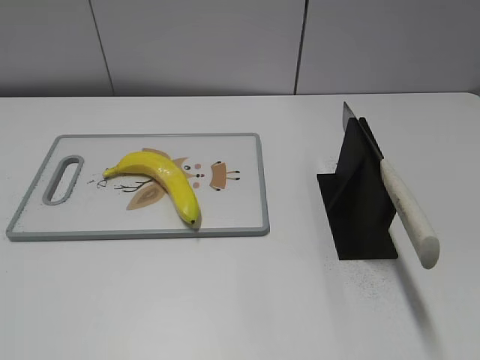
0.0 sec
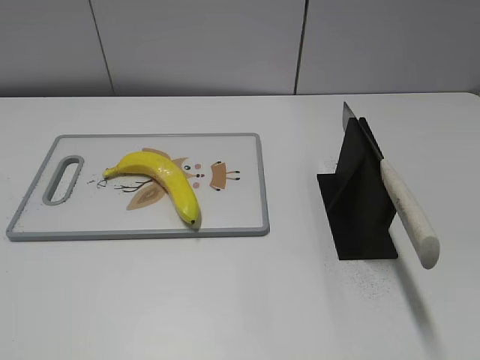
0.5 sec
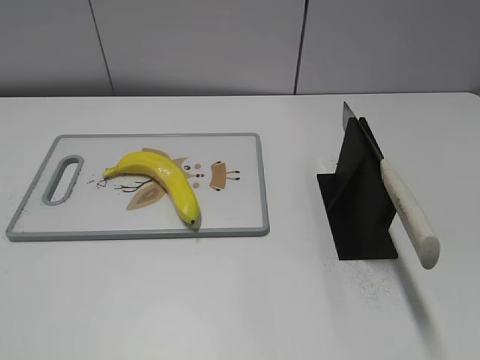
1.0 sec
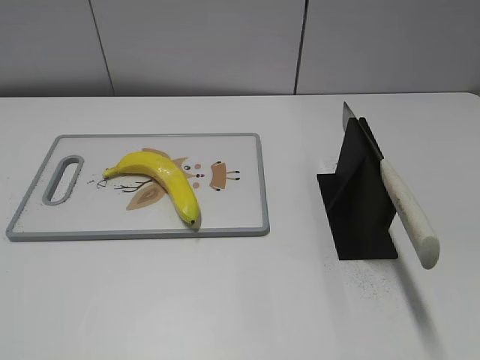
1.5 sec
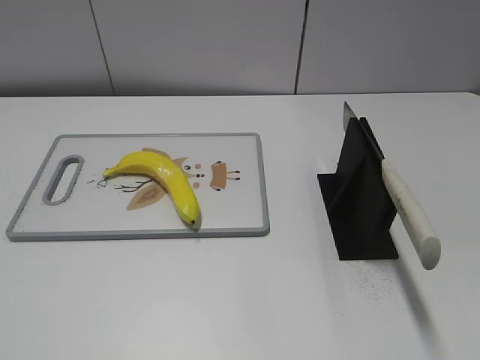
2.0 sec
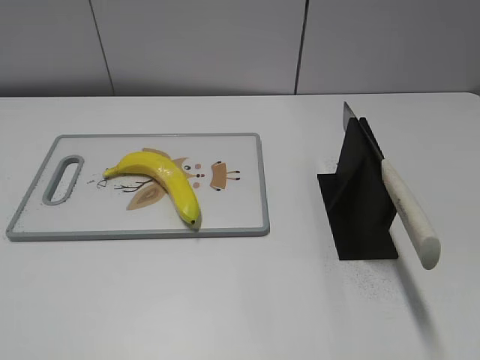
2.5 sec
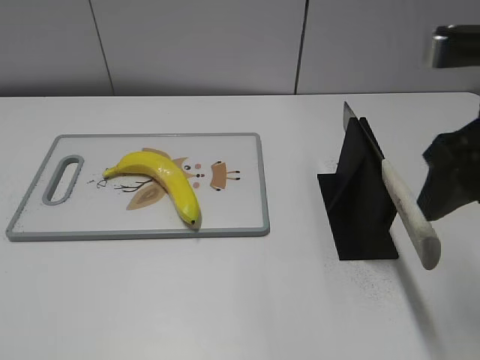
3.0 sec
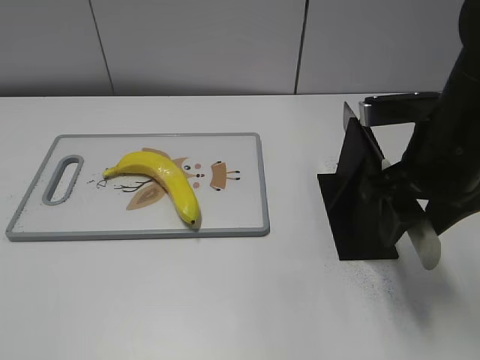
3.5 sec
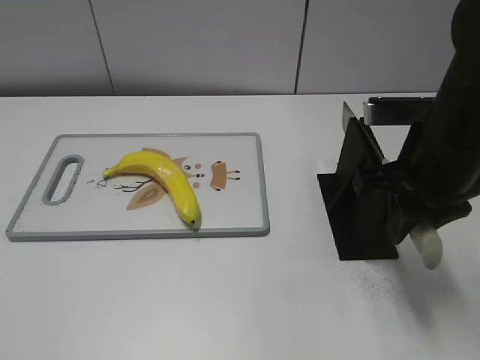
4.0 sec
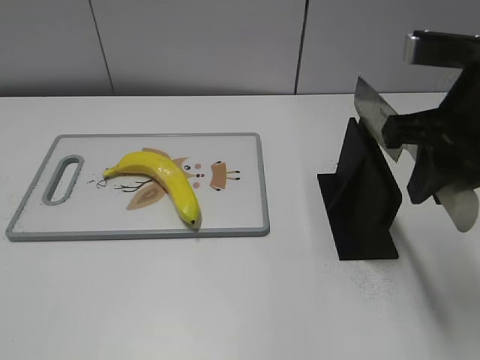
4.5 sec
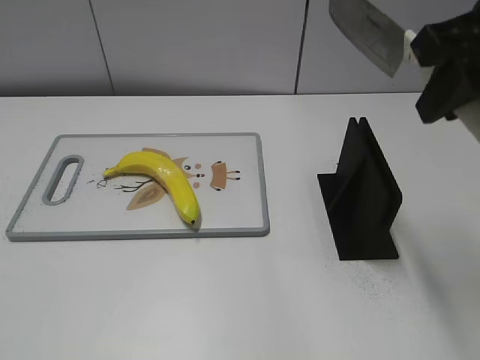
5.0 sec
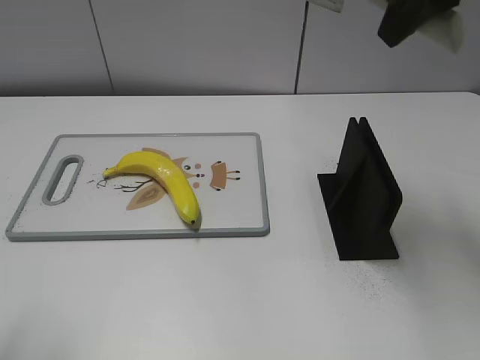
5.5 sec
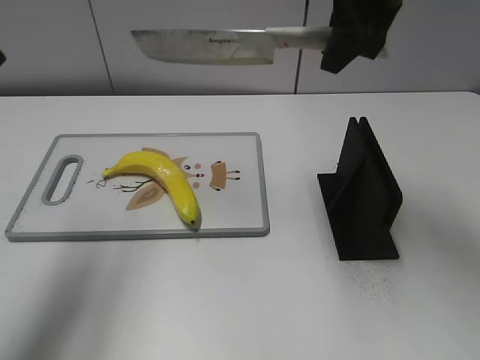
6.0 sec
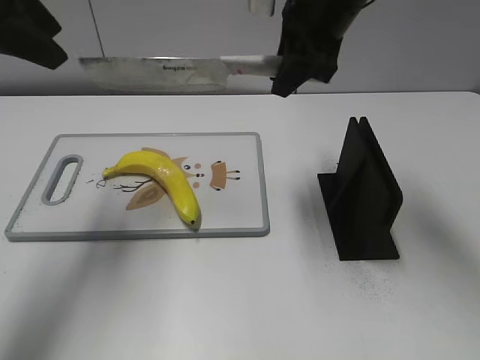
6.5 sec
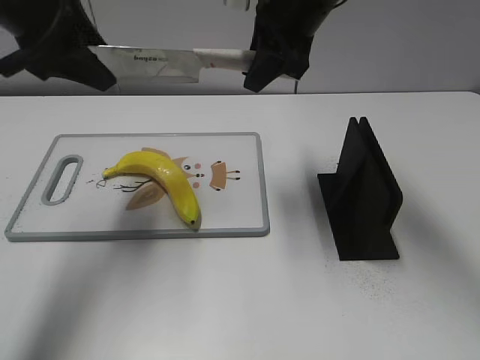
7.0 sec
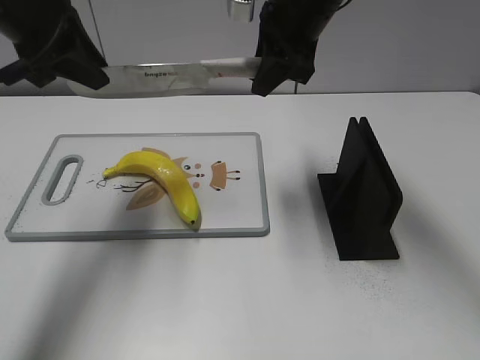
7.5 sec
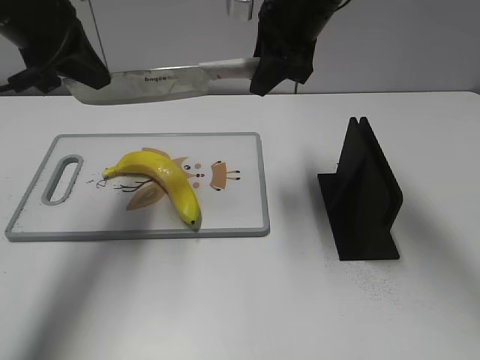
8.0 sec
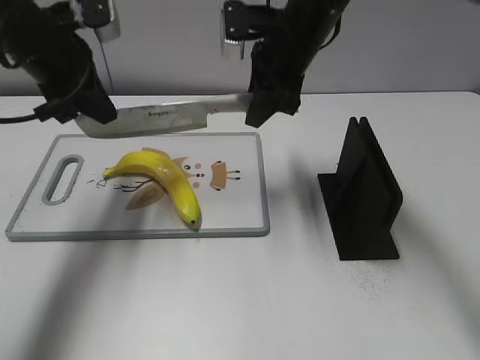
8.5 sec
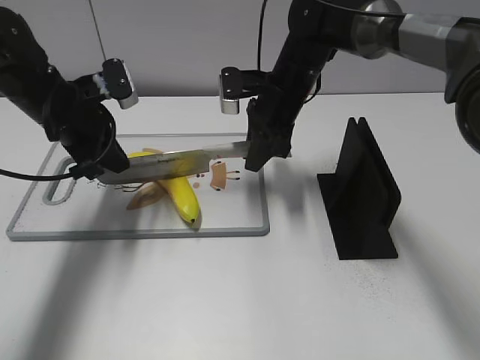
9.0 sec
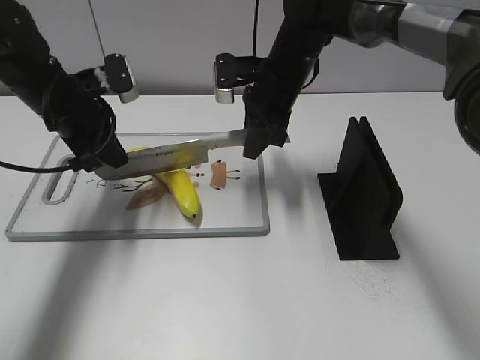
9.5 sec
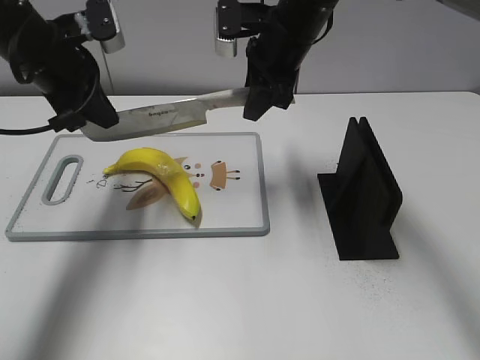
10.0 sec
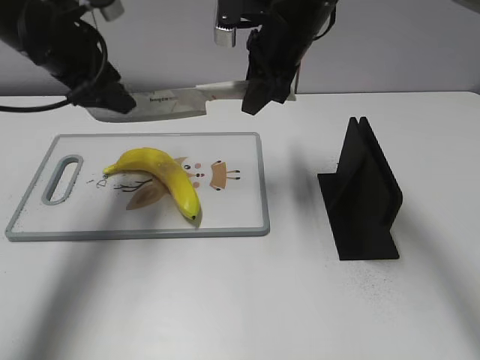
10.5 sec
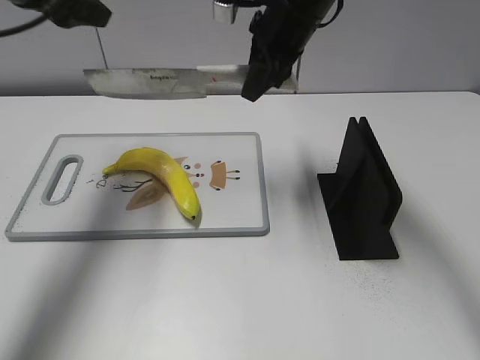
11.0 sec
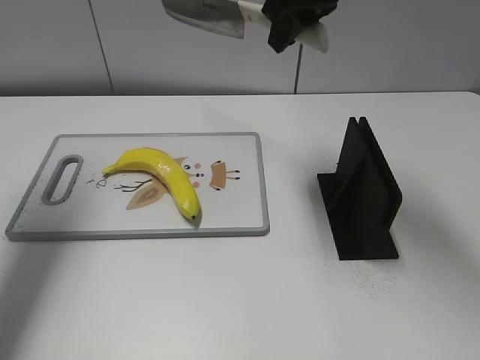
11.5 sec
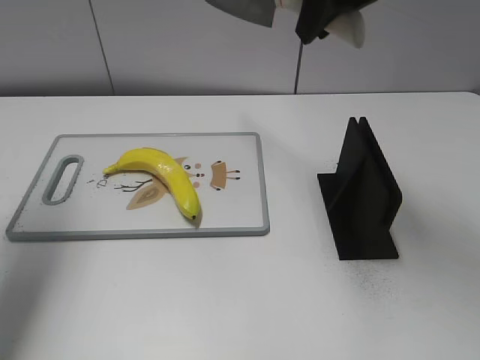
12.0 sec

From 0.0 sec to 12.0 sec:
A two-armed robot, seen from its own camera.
Task of the whole recording: cut plastic banana.
Step, from 0.0 sec to 5.0 sec: Grab the knife handle with your right hand.
Step, from 5.5 sec to 9.0 sec: Lift the knife with your right hand.
Step, from 9.5 sec to 11.0 sec: Cut the banana with your left hand.
From 2.0 sec to 4.0 sec: The right gripper travels forward, to the left and downward by some 30 cm, and closes its fingers.
From 4.0 sec to 6.0 sec: The right gripper goes approximately 15 cm upward, forward and to the left, while the left gripper goes approximately 30 cm forward and upward.
From 6.0 sec to 8.0 sec: The left gripper travels forward and downward by some 15 cm, and closes its fingers, while the right gripper heads to the left, covering roughly 5 cm.
From 8.0 sec to 10.0 sec: The left gripper heads downward, covering approximately 5 cm. Meanwhile the right gripper goes downward and returns, some 15 cm each way.
From 10.0 sec to 12.0 sec: The right gripper goes roughly 15 cm upward, backward and to the right; the left gripper heads upward, to the left and backward, covering approximately 15 cm, and opens its fingers.

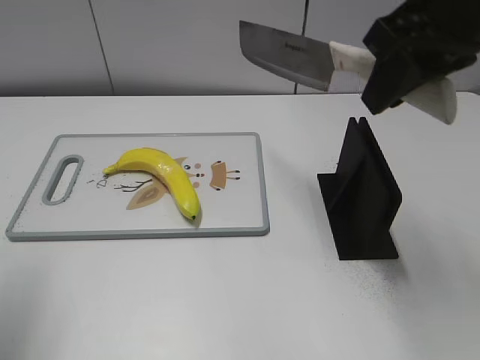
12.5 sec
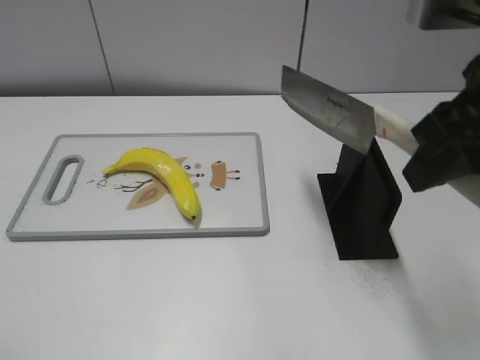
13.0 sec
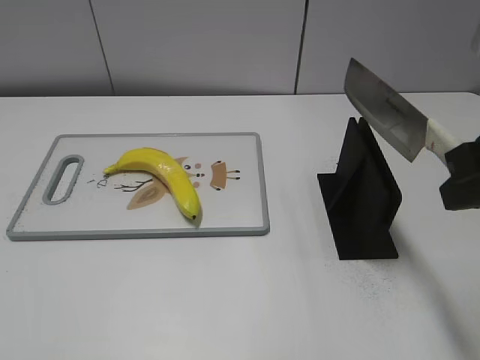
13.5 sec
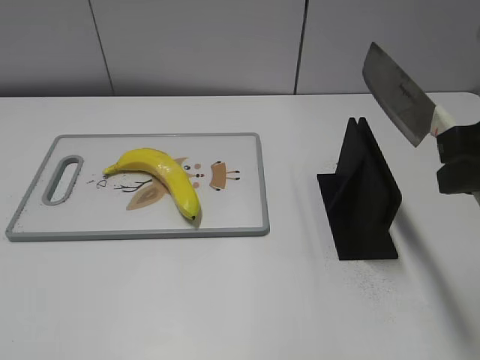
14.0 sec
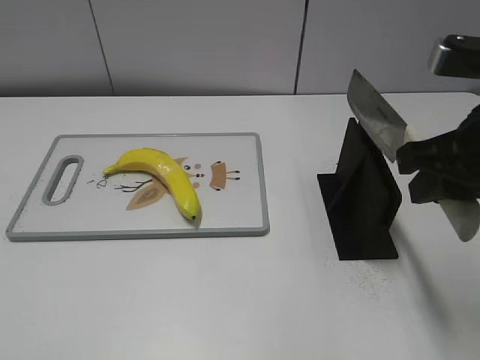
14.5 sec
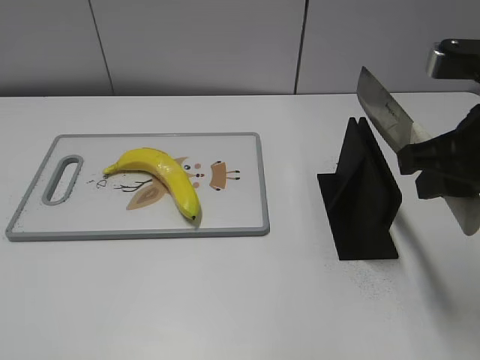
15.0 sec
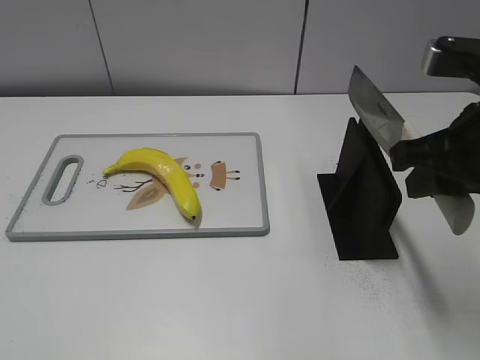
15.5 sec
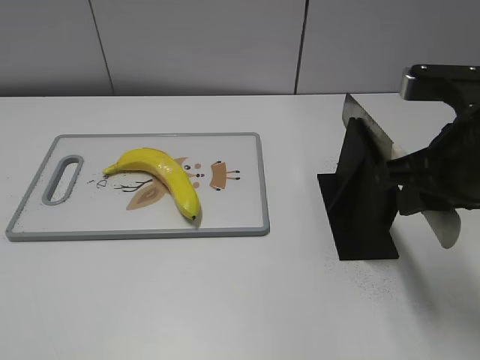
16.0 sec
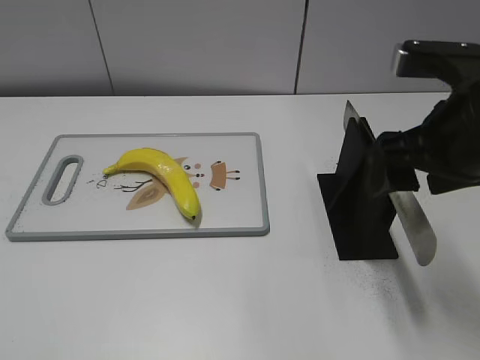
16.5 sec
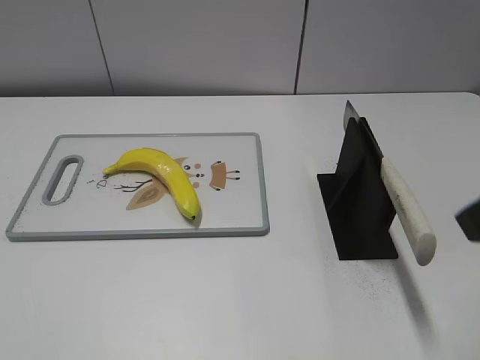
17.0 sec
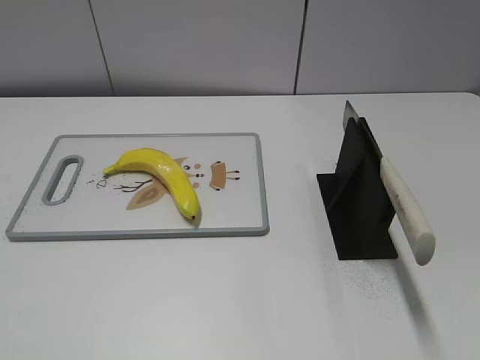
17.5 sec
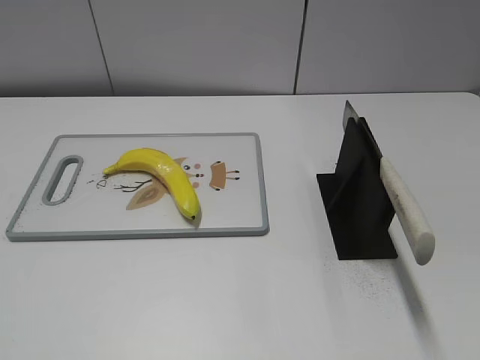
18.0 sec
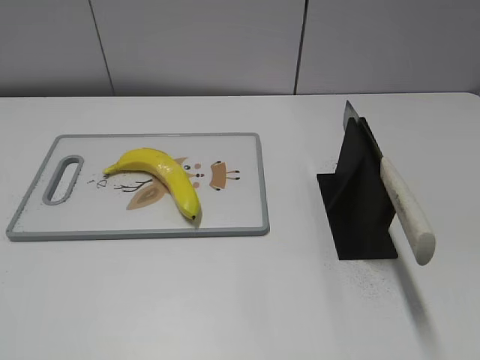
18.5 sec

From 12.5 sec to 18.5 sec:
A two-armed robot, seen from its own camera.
Task of the whole recording: cut plastic banana.
Step, from 13.0 sec to 18.5 sec: Place the knife on the storage rack with your right hand.
From 12.5 sec to 14.5 sec: The right gripper travels downward and backward by roughly 10 cm. The left gripper shifts some 20 cm backward.
From 14.5 sec to 16.5 sec: The right gripper opens its fingers.
From 16.5 sec to 18.5 sec: The right gripper moves backward and to the right, some 25 cm.

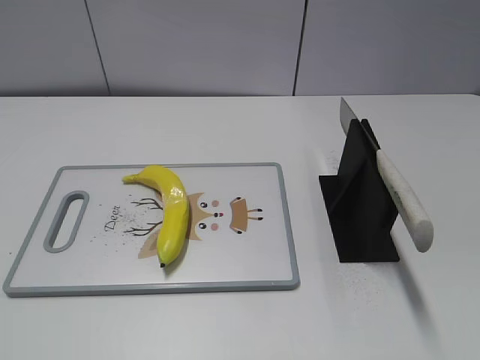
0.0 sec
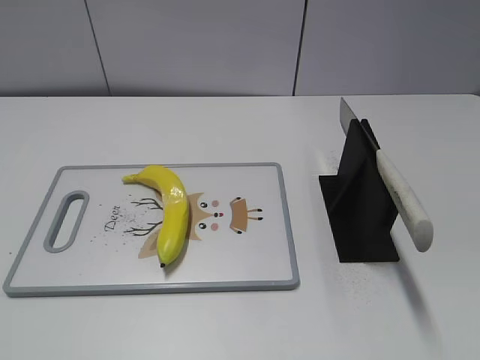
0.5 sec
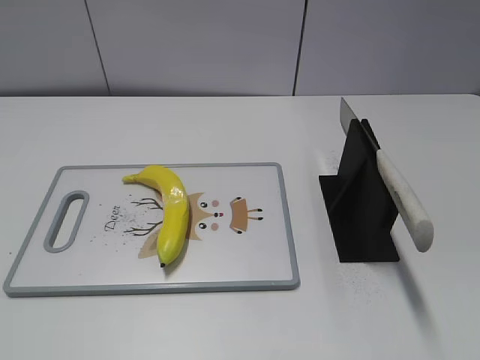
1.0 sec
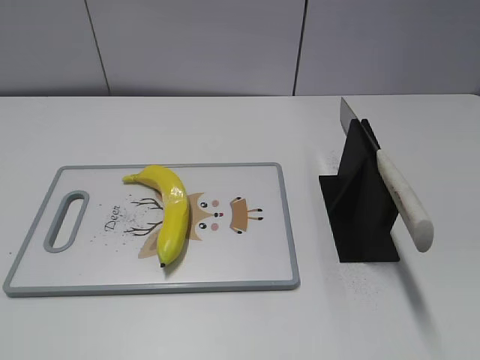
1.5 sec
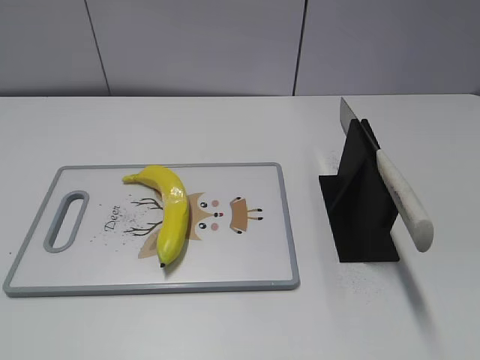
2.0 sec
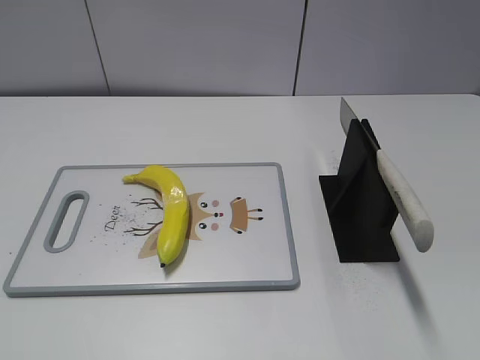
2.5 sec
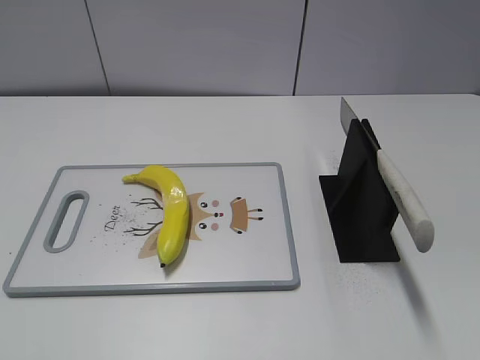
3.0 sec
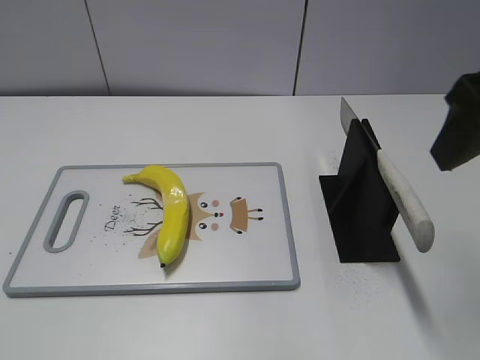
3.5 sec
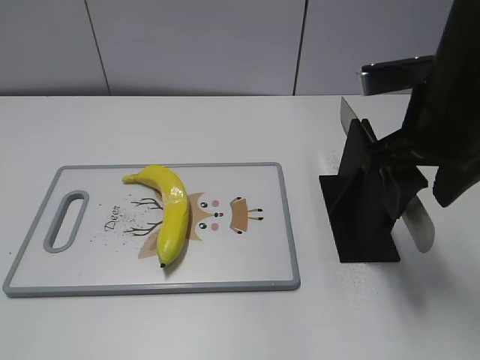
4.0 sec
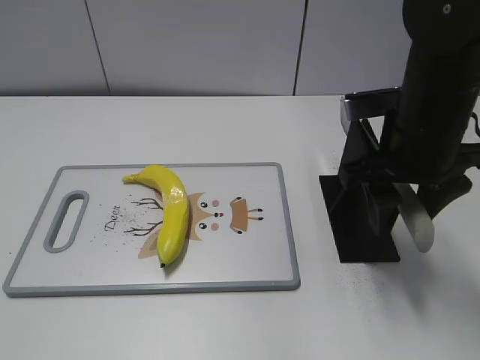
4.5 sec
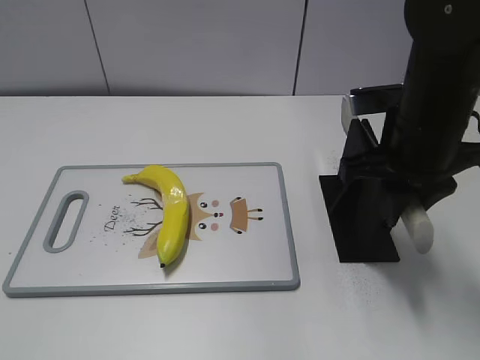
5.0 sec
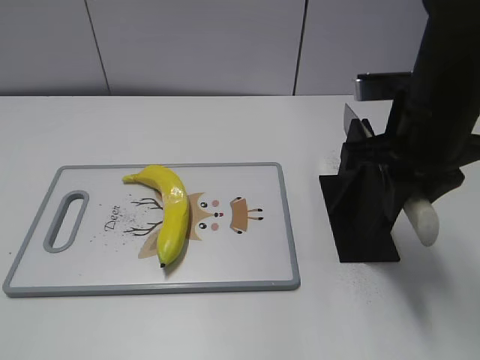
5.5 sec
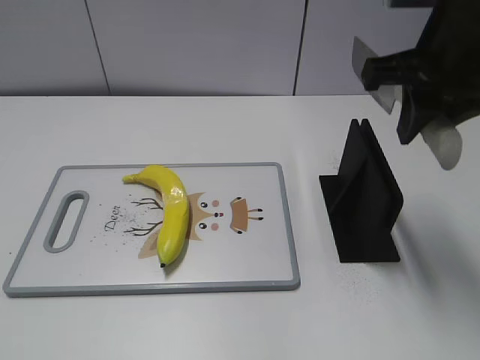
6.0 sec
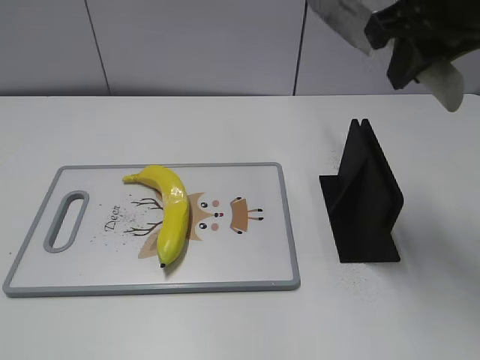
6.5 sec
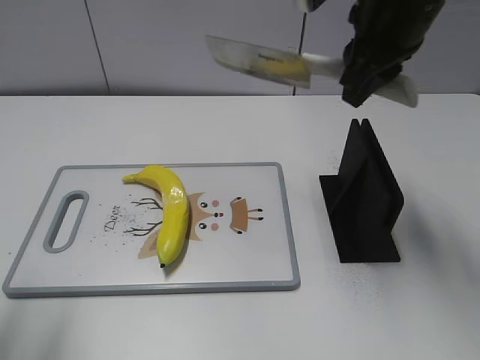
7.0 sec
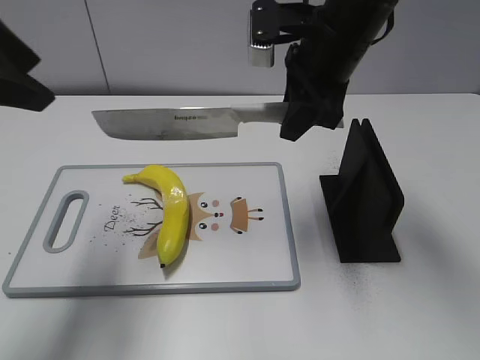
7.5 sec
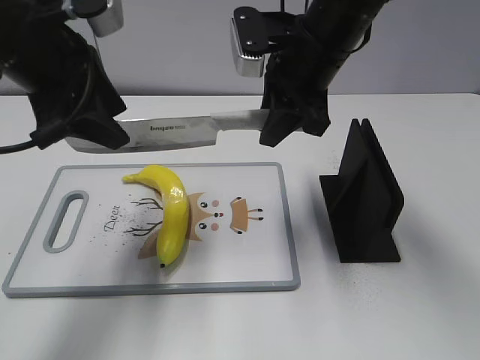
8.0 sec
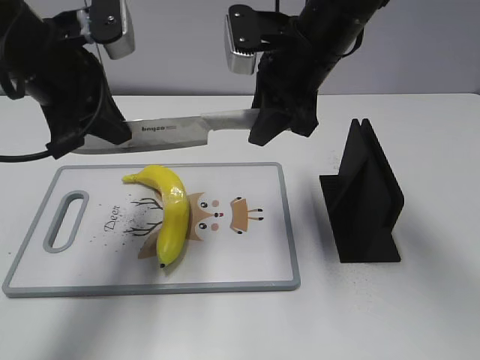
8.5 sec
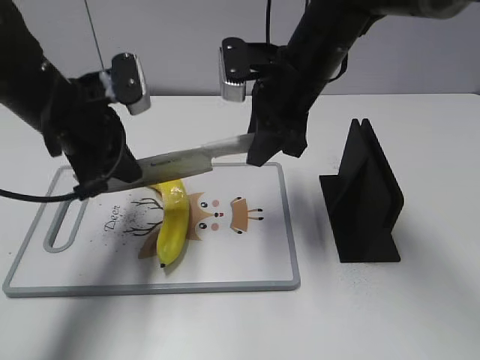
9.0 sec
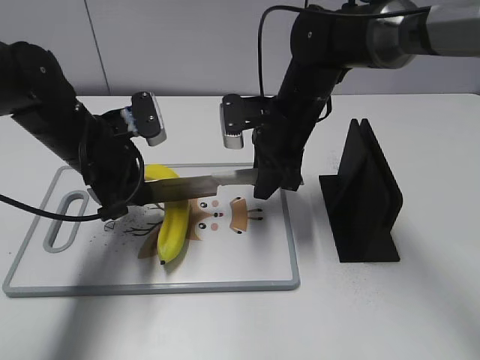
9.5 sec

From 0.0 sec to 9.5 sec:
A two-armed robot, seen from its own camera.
Task of the whole recording: cut plastic banana.
Step, from 0.0 sec to 6.0 sec: Grab the knife handle with your right hand.
From 2.0 sec to 4.0 sec: The right gripper heads forward and to the left, covering roughly 30 cm.
From 4.0 sec to 5.5 sec: The right gripper closes.
From 5.5 sec to 7.5 sec: The left gripper shifts approximately 25 cm forward; the right gripper goes roughly 10 cm forward and to the left, and travels upward and back again, roughly 10 cm each way.
From 7.5 sec to 9.5 sec: The left gripper moves downward and forward, about 20 cm, and closes its fingers. The right gripper travels downward by about 10 cm.
